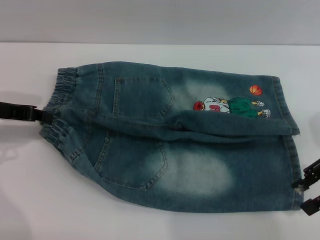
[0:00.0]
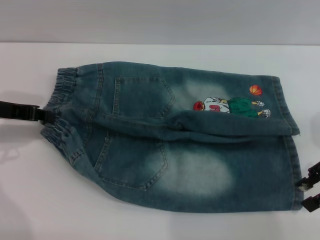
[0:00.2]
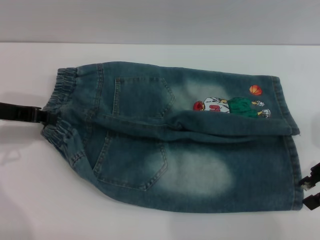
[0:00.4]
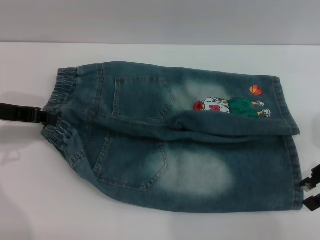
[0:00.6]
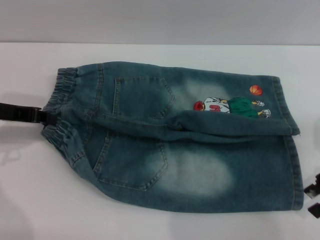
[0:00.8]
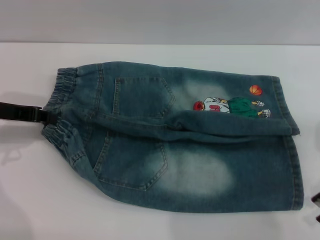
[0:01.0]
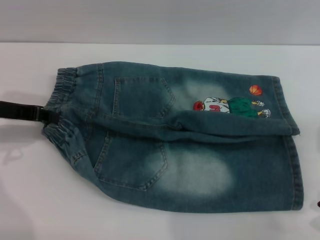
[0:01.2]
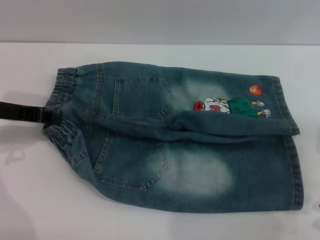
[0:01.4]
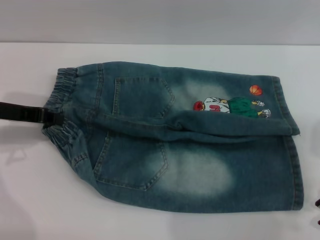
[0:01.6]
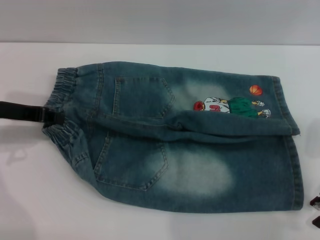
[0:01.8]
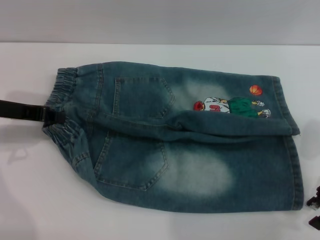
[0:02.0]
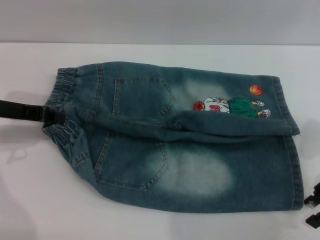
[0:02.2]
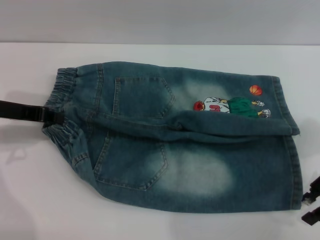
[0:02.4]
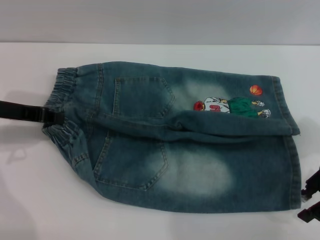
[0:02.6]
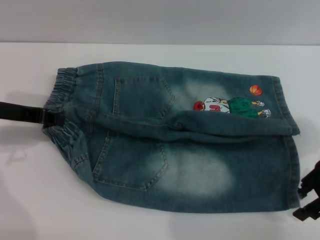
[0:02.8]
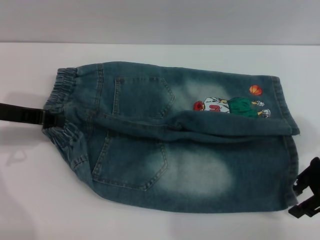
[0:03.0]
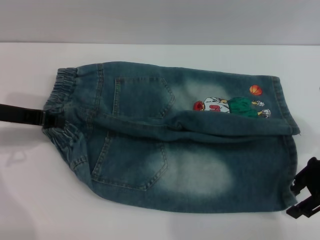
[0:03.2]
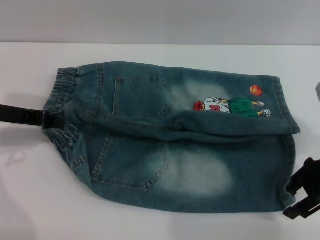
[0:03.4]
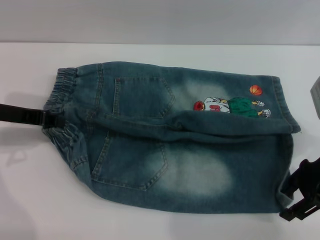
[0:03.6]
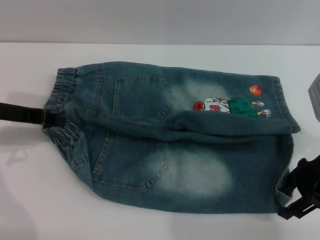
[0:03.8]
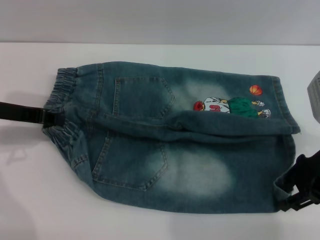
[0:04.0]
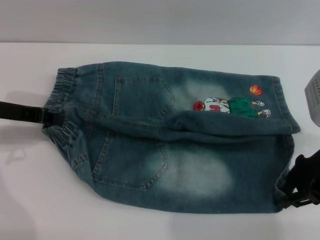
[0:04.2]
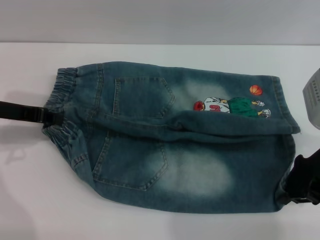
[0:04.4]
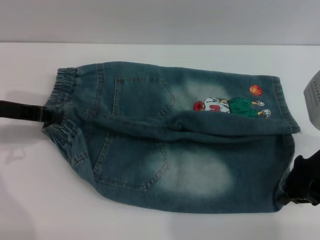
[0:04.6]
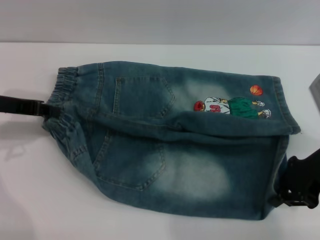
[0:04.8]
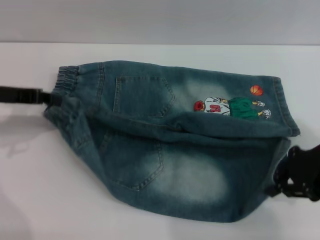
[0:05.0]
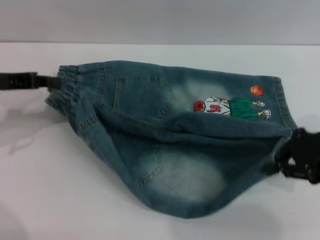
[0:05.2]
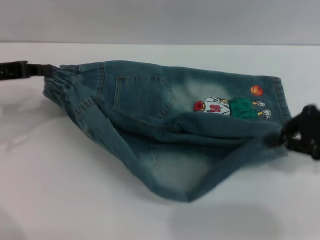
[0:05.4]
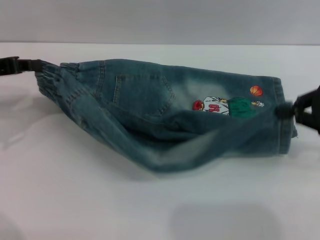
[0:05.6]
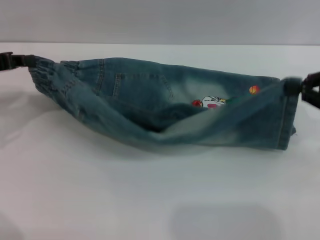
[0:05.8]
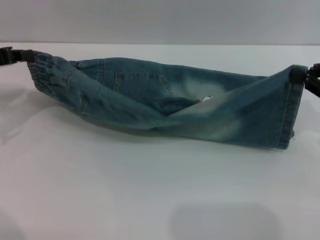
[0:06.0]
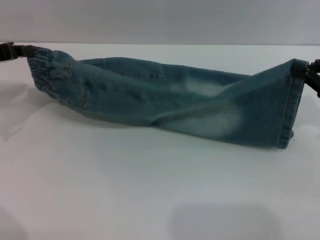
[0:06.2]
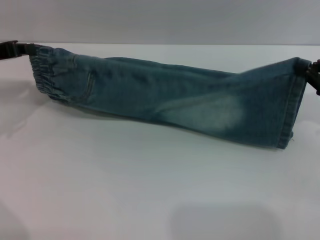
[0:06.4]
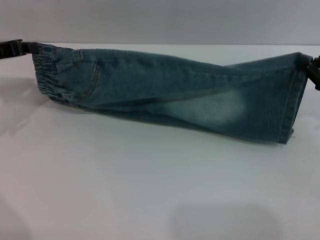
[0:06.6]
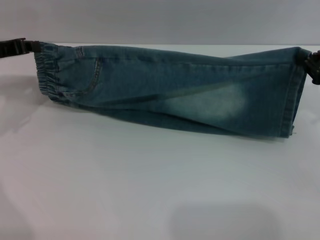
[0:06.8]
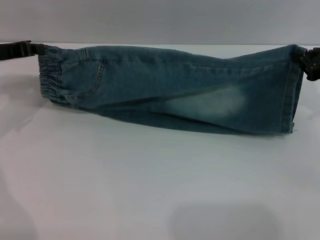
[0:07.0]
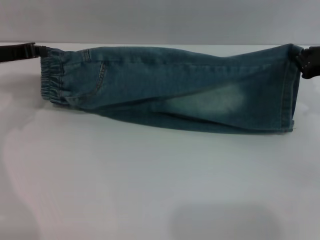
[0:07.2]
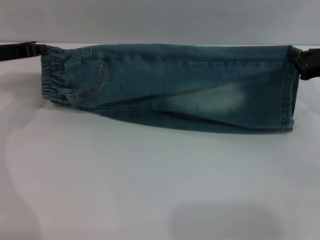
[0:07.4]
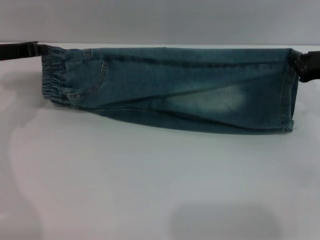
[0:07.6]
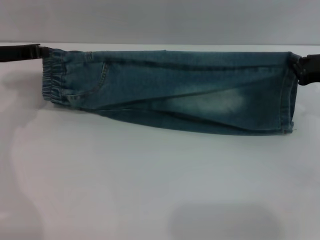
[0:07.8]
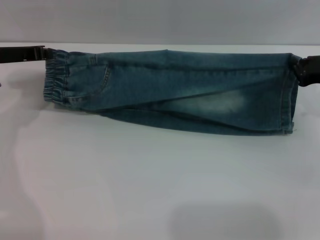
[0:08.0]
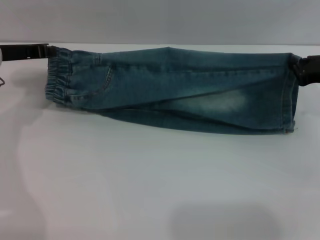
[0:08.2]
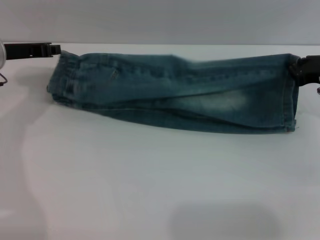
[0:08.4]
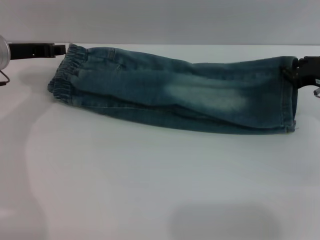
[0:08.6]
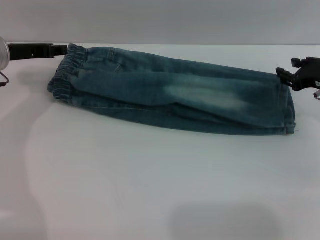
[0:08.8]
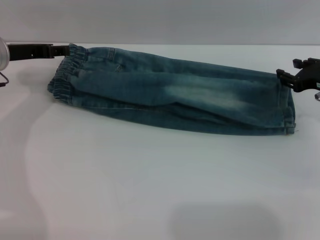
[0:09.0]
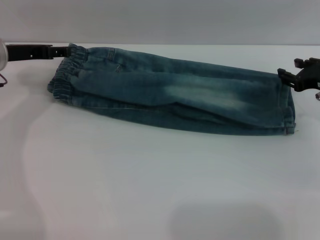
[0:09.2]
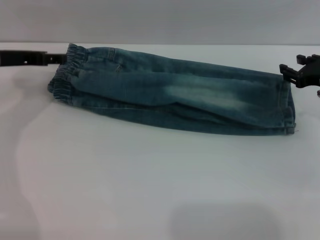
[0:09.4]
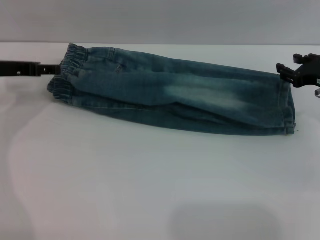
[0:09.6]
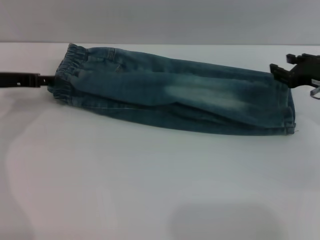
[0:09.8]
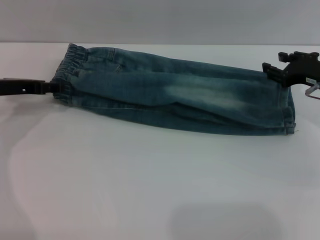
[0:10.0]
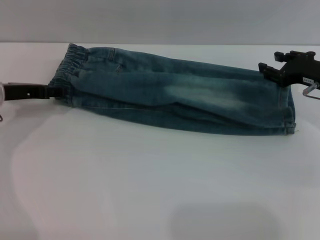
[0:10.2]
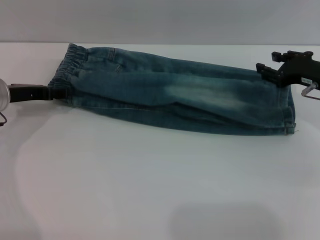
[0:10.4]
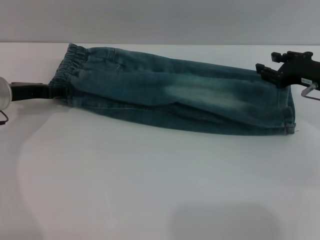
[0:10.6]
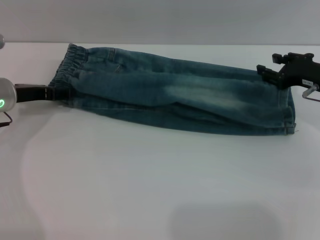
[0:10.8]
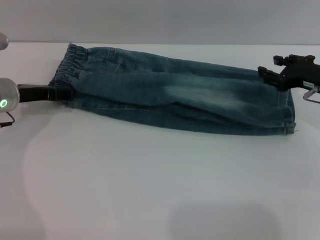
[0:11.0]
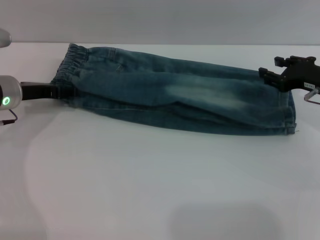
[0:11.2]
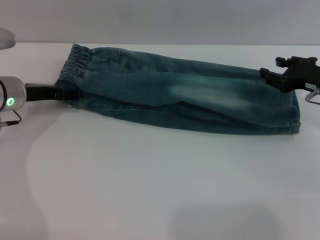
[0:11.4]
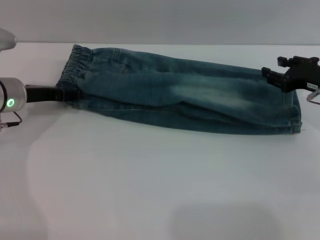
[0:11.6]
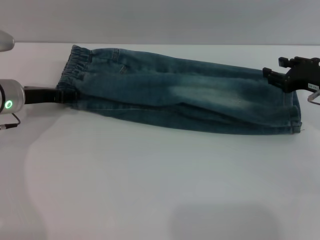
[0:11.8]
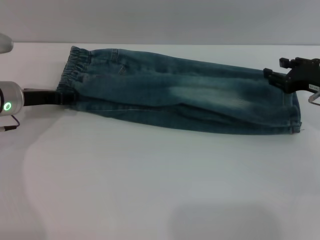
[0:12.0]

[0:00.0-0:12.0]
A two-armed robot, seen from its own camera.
Step, 0:00.0 to 0:09.4: Fold the bottom of the pants upward with both grippers.
0:00.0 to 0:03.0: The grippers move only a little.
0:03.0 to 0:04.4: The right gripper closes its fingers.
0:04.4 to 0:06.0: The right gripper shifts about 10 cm to the right, and closes its fingers.
0:06.0 to 0:07.6: The right gripper shifts approximately 10 cm forward and downward. The left gripper shifts by about 5 cm.
0:07.6 to 0:09.0: The left gripper opens up, while the right gripper opens.
0:09.0 to 0:10.4: The left gripper moves roughly 5 cm.
0:10.4 to 0:12.0: The grippers make only small movements.

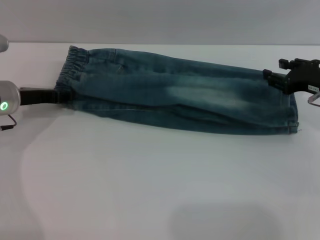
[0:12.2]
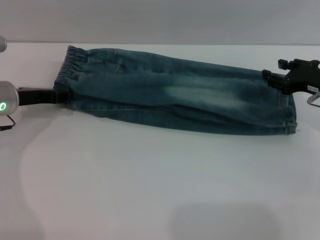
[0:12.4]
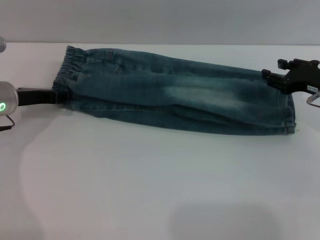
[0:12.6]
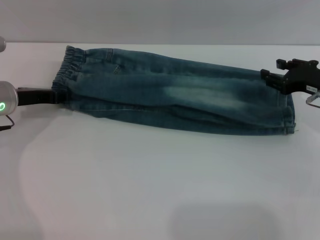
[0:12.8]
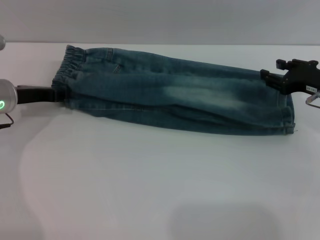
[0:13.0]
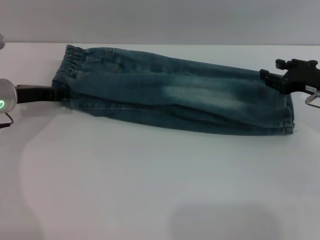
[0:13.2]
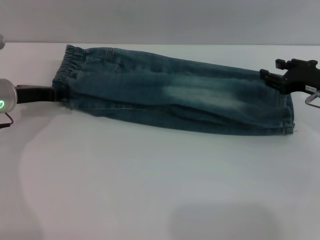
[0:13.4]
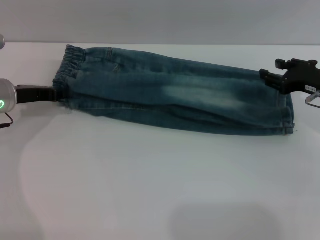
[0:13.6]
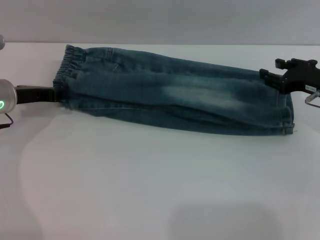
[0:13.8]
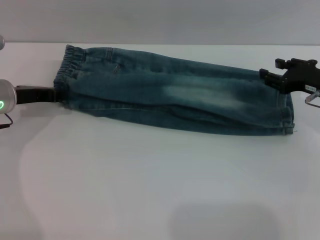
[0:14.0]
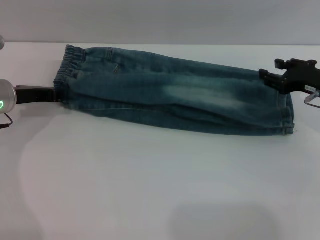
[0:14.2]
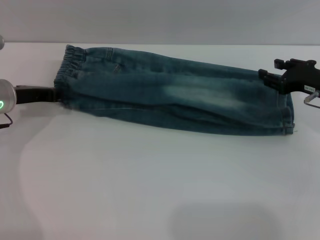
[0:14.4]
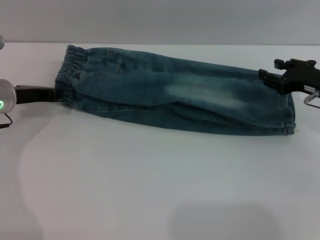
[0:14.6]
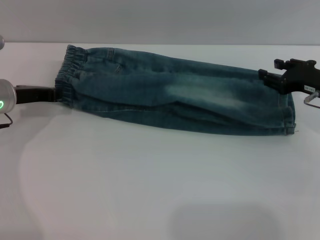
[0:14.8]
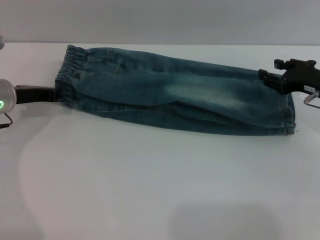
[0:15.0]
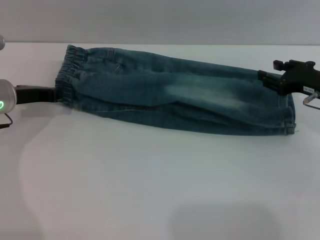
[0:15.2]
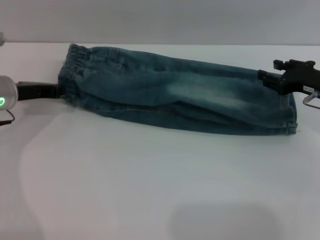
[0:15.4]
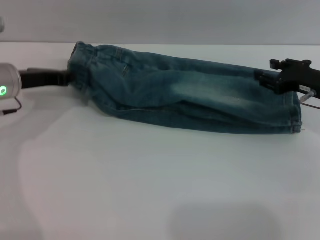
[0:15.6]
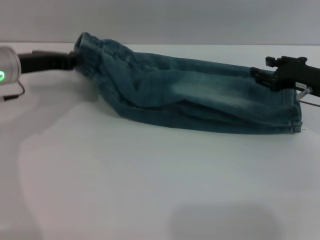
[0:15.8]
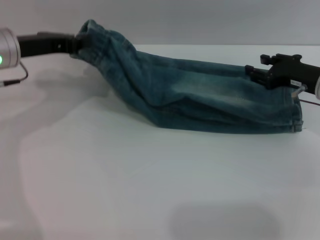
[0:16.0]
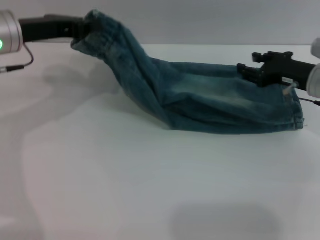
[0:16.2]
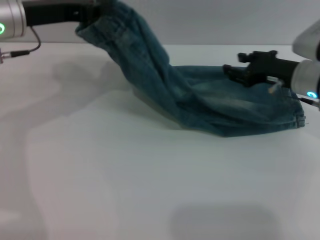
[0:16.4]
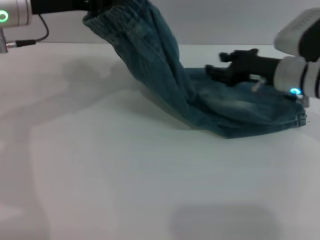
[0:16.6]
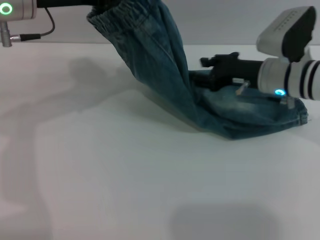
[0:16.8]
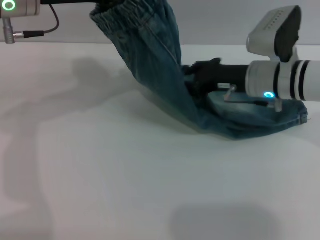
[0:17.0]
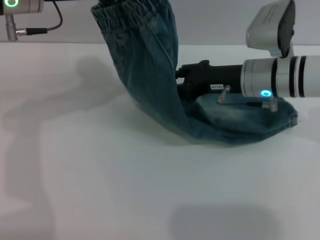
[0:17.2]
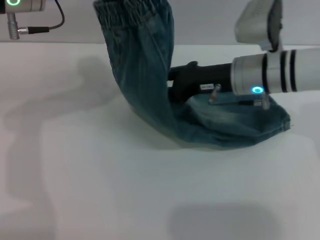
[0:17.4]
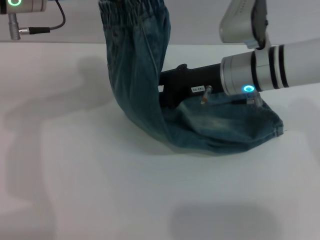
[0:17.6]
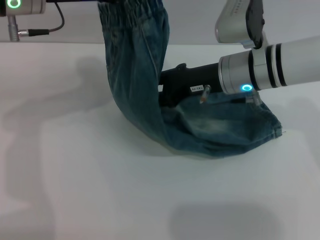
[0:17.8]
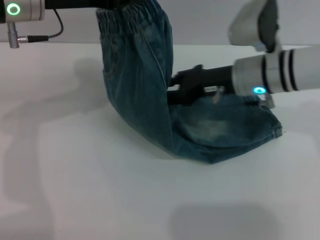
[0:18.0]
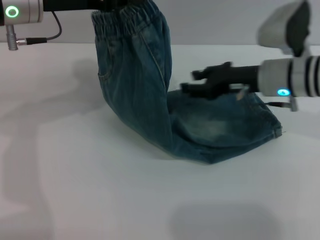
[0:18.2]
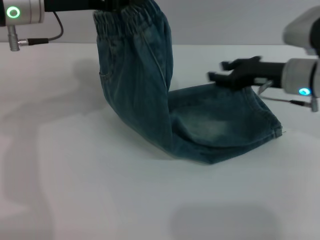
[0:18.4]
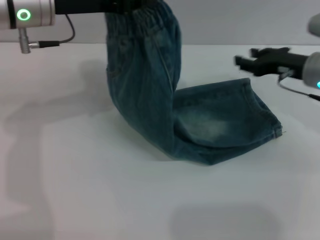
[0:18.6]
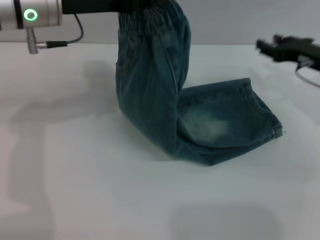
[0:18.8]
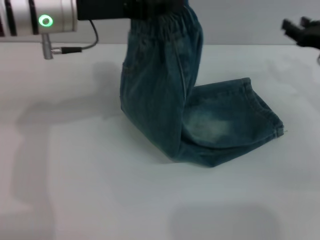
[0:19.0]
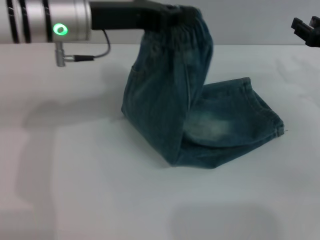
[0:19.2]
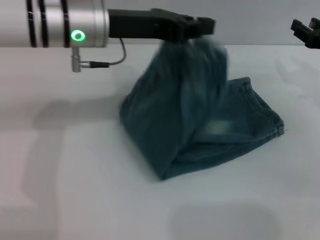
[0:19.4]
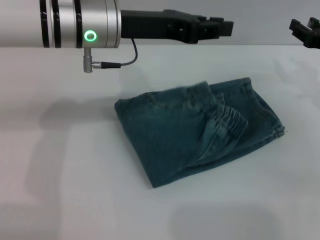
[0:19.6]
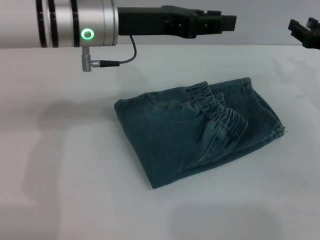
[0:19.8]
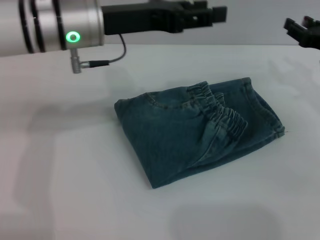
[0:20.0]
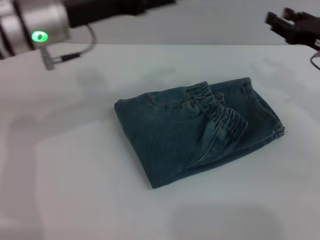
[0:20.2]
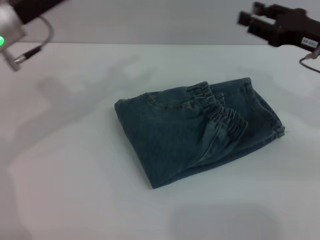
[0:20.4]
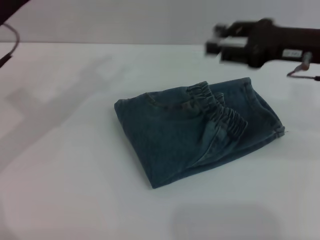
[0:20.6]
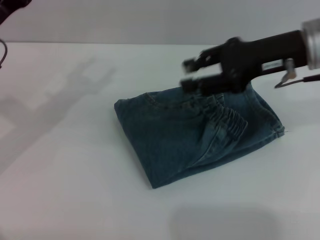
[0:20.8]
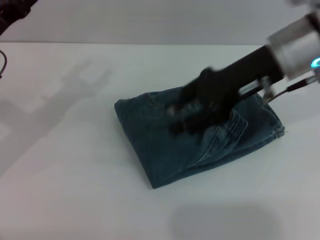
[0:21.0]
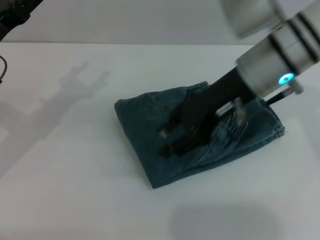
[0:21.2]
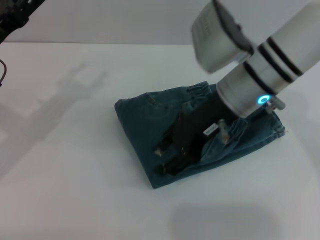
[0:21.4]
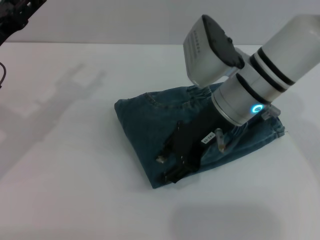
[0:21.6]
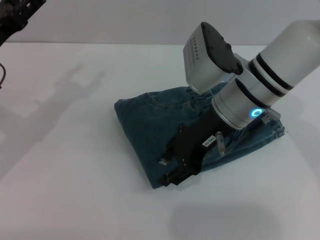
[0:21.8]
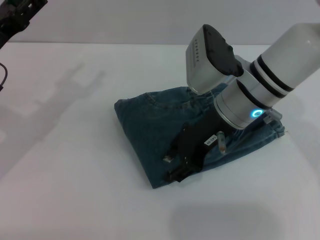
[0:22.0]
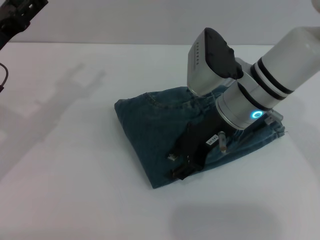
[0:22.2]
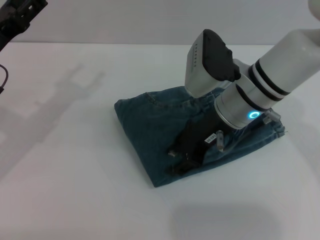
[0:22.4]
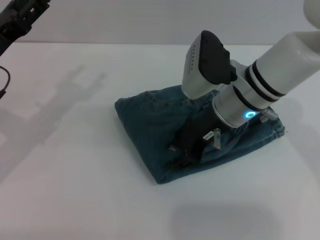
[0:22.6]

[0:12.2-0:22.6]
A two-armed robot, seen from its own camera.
Step, 0:12.2 to 0:19.8: Fold the pants from left to right with the left gripper.
0:12.2 to 0:13.6: Both grippers stay put.
0:15.2 to 0:16.6: The right gripper goes about 10 cm to the left; the left gripper travels upward and to the right by roughly 15 cm.
0:16.6 to 0:18.2: The right gripper moves roughly 10 cm to the left and comes back.
0:18.2 to 0:19.6: The two grippers go about 10 cm to the right.
0:19.6 to 0:21.2: The left gripper goes some 20 cm to the left and downward, and opens up. The right gripper heads to the left and upward, covering roughly 20 cm.
0:21.2 to 0:22.6: The right gripper goes approximately 5 cm downward.
